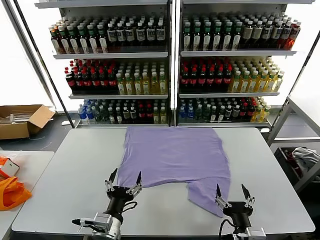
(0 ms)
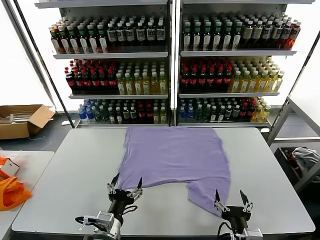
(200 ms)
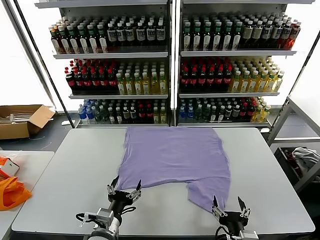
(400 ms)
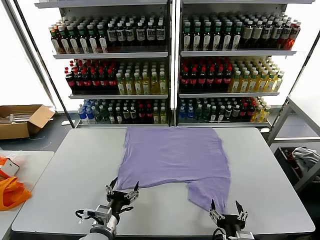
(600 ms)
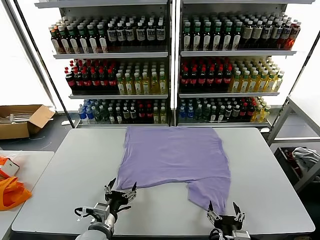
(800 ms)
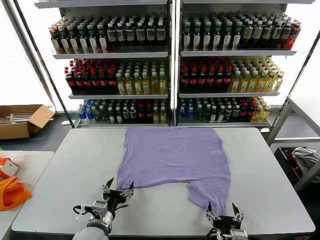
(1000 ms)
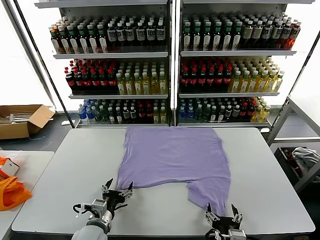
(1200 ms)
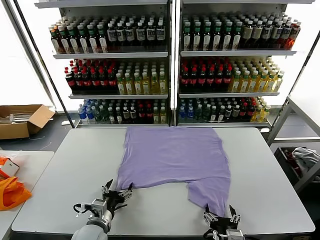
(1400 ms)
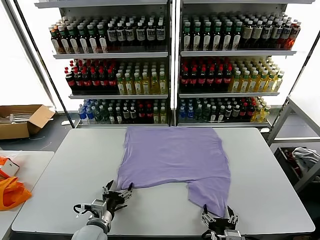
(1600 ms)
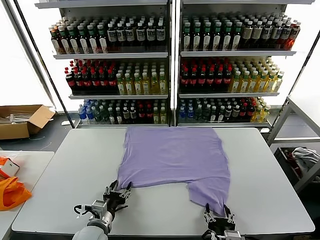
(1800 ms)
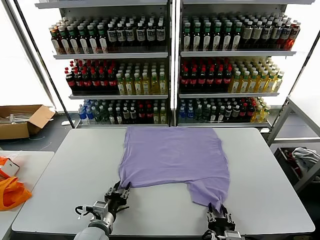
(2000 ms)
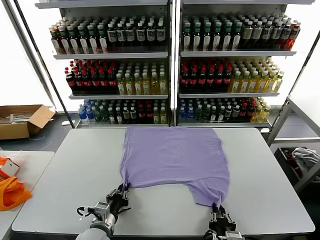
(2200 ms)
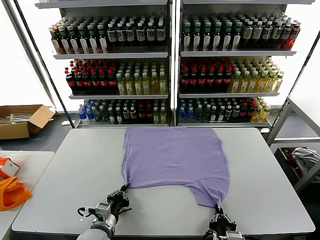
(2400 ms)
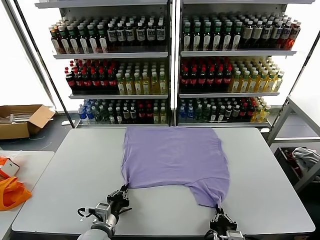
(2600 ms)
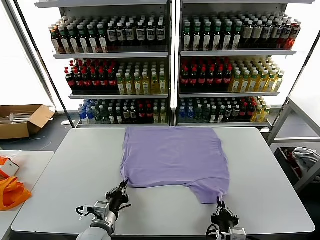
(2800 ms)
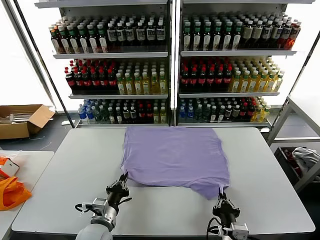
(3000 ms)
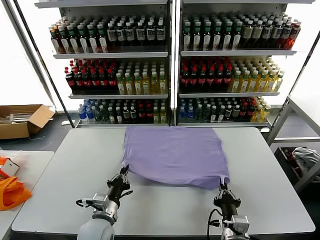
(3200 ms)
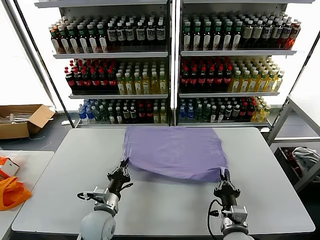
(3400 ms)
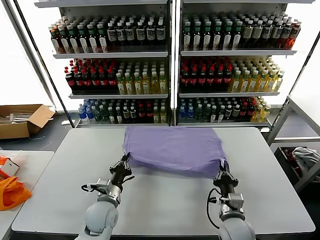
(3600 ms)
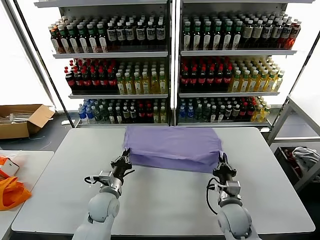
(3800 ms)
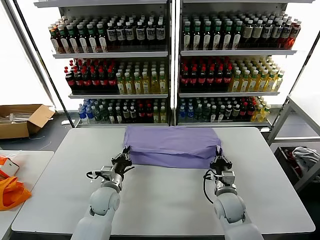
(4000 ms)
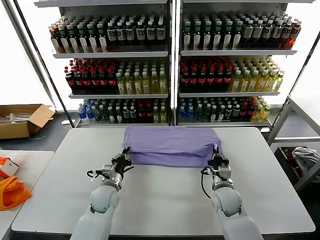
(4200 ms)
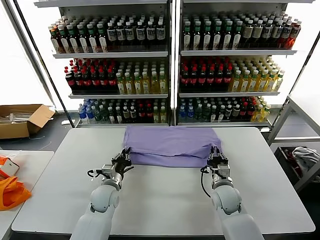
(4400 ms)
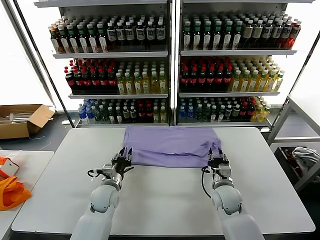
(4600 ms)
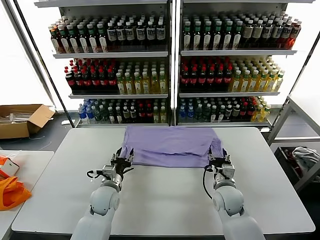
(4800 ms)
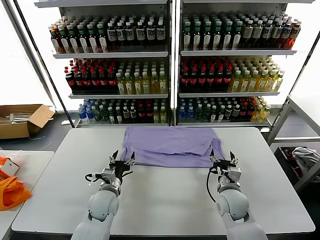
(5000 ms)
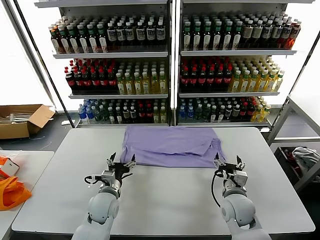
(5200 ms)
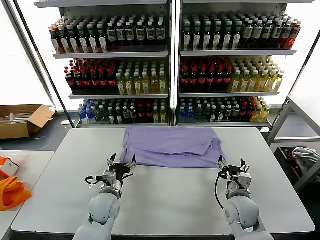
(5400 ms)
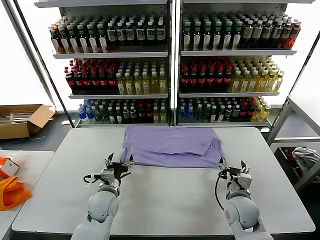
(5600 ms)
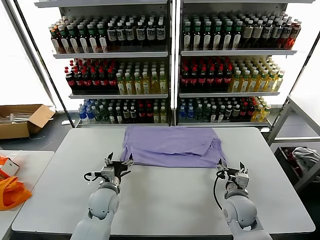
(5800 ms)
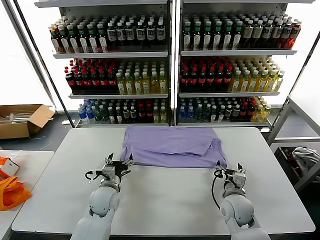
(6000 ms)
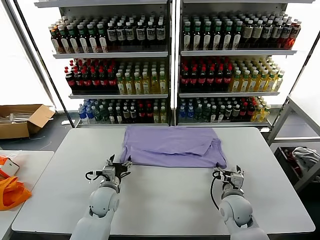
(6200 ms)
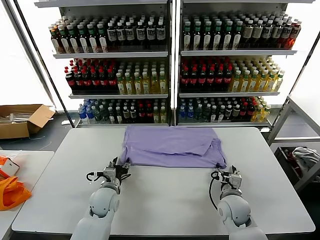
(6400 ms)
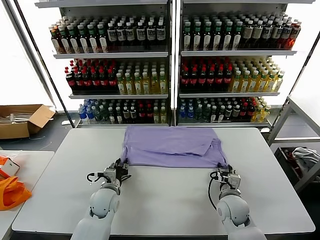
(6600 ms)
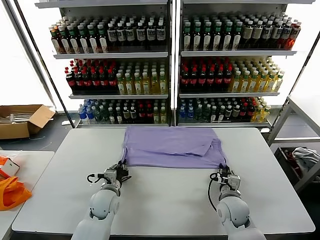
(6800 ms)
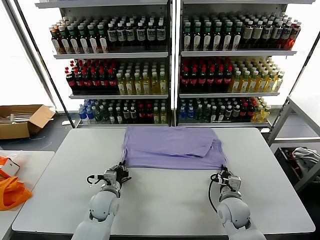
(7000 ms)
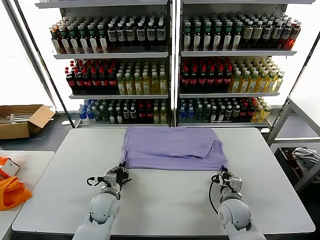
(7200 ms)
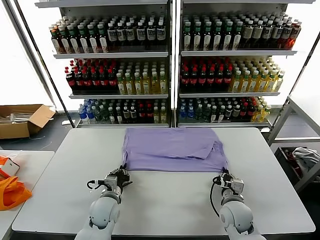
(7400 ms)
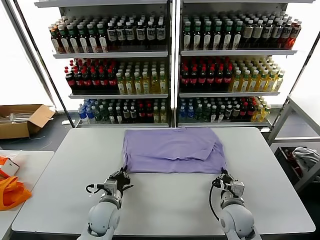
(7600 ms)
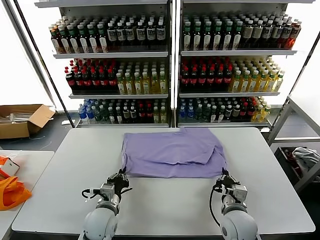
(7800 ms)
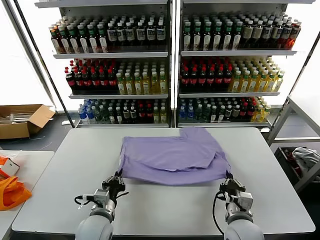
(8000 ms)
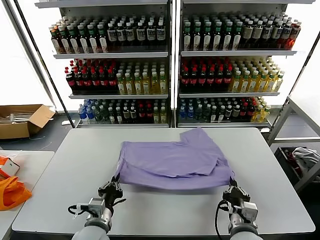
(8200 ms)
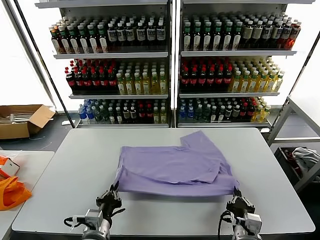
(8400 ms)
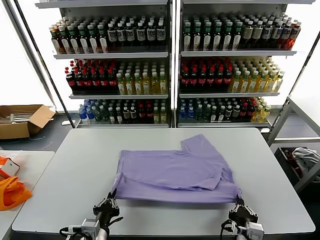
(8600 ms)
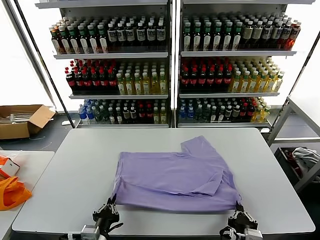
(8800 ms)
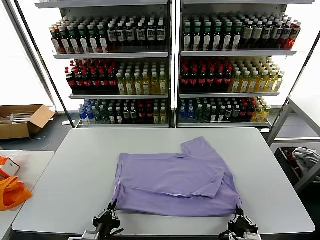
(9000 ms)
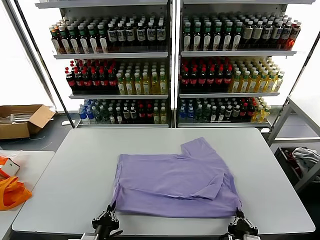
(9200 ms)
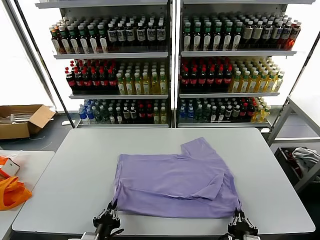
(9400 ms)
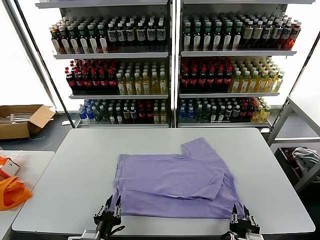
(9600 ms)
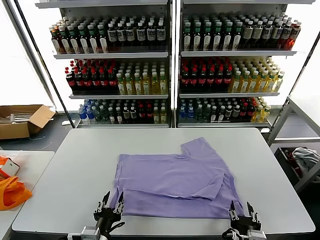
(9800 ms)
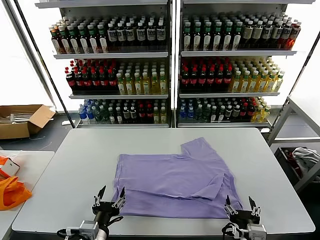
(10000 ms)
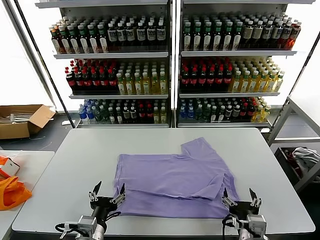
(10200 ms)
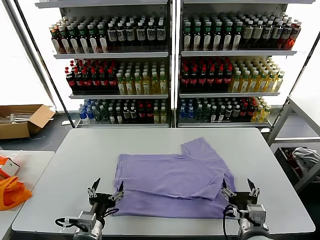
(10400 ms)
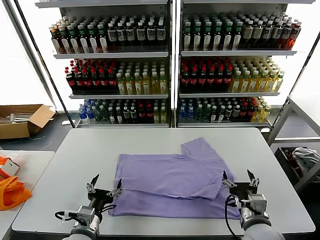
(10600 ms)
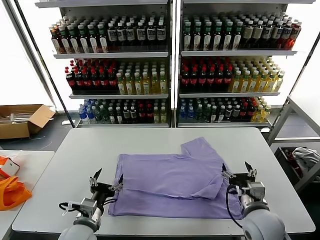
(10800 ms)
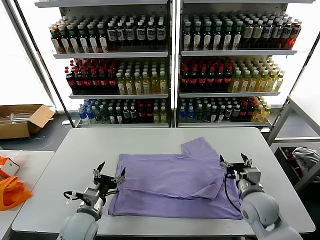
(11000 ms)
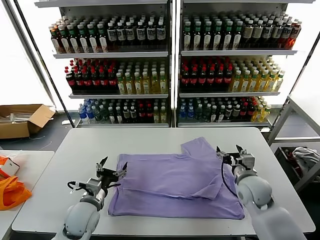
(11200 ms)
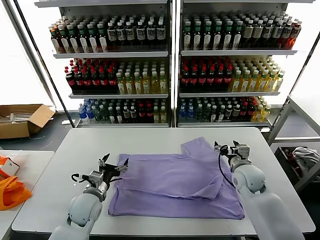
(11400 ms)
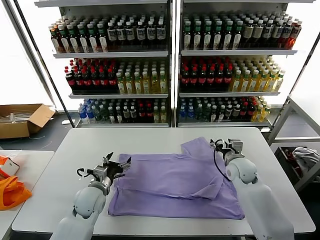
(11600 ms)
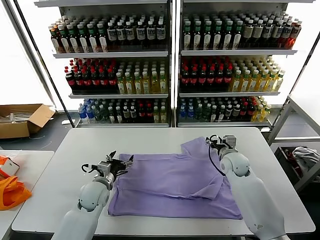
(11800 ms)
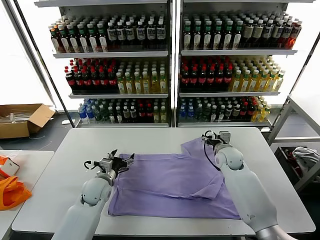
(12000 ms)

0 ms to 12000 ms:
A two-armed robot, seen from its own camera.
Task of the whole recording: fold and organize the clothes.
Step, 0 ms to 2800 ms: use both grippers simultaneously to clamp the lower edge of the clothing fabric.
Step, 3000 ms to 4800 ms: use both grippers to drag the lower edge of the fabric forward and fold it over the upper edge.
Step, 5000 ms to 9800 ms: Drag the clothes downward with both gripper.
1600 ms to 3000 ms: The left gripper closes up, while the right gripper closes.
3000 ms to 4400 ms: Both grippers move forward, some 15 cm. The right gripper opens its fingers.
4400 ms to 6000 ms: The right gripper opens up. The left gripper opens up.
6000 ms to 7600 ms: Both grippers travel together backward, some 5 cm. The right gripper closes, while the left gripper closes its fingers.
7600 ms to 9000 ms: The grippers both shift backward by approximately 15 cm.
9000 ms to 10400 ms: The grippers both shift forward by roughly 5 cm. The left gripper opens up. Meanwhile the right gripper opens up.
10400 ms to 12000 ms: Both grippers move forward, about 25 cm.

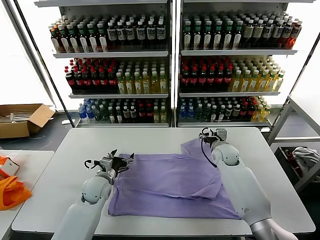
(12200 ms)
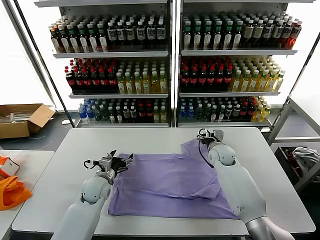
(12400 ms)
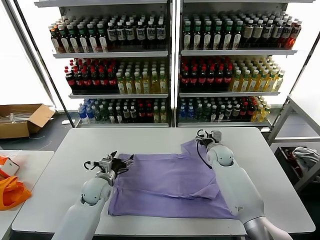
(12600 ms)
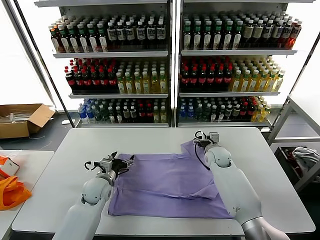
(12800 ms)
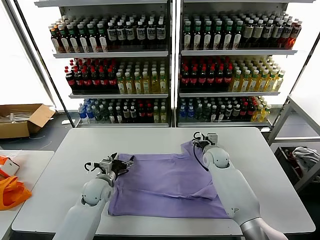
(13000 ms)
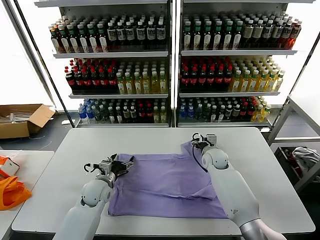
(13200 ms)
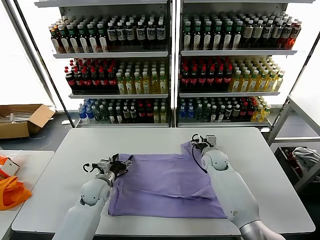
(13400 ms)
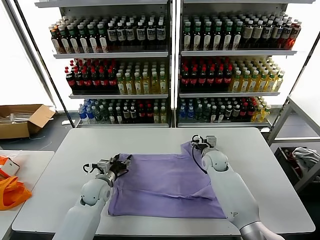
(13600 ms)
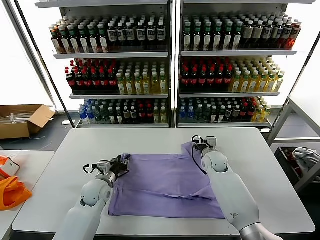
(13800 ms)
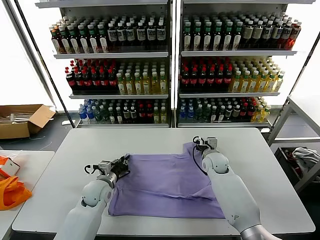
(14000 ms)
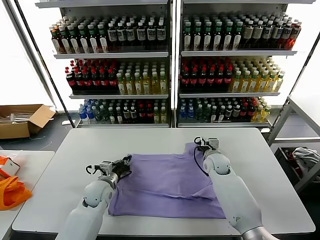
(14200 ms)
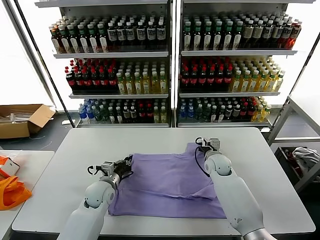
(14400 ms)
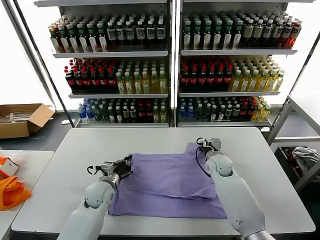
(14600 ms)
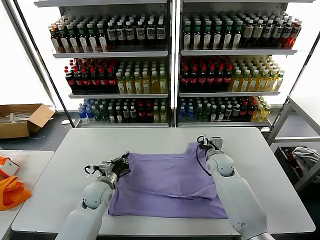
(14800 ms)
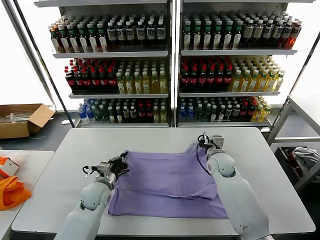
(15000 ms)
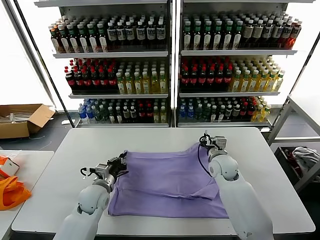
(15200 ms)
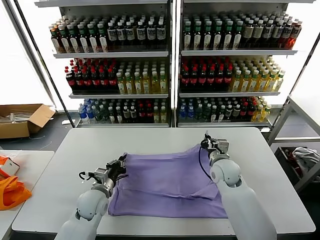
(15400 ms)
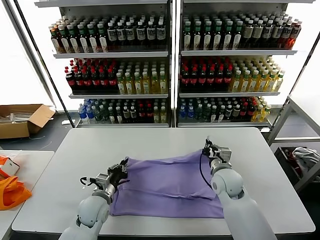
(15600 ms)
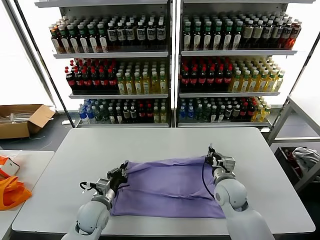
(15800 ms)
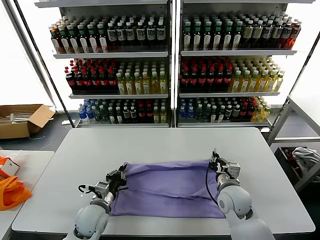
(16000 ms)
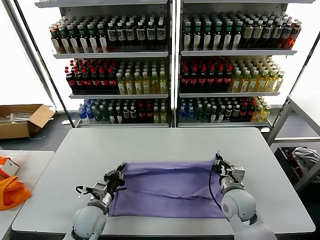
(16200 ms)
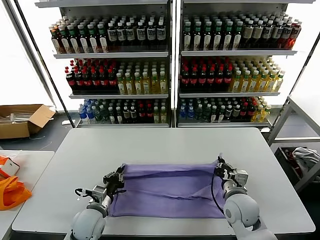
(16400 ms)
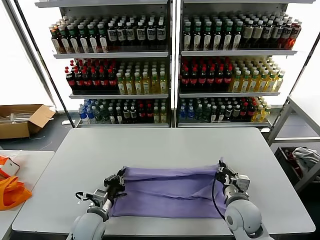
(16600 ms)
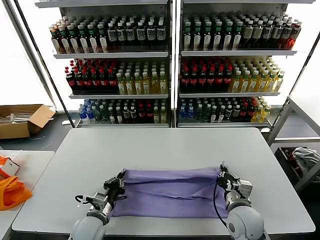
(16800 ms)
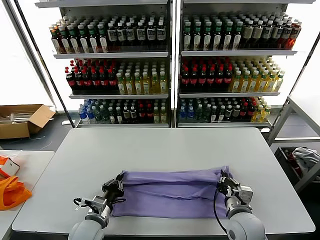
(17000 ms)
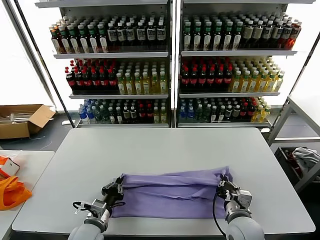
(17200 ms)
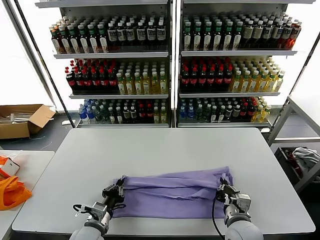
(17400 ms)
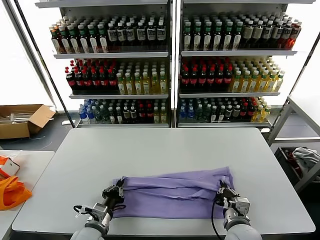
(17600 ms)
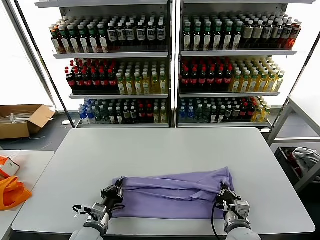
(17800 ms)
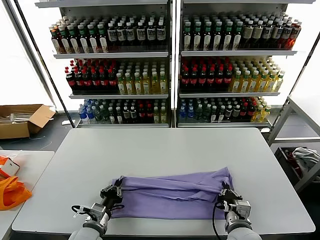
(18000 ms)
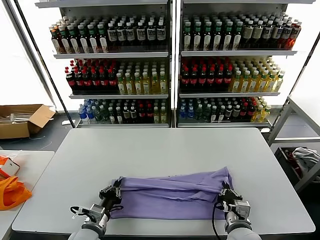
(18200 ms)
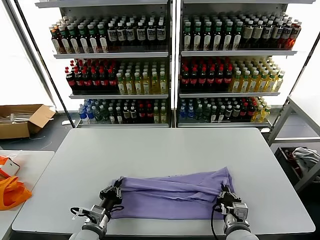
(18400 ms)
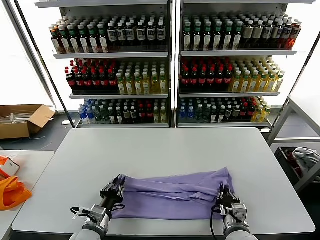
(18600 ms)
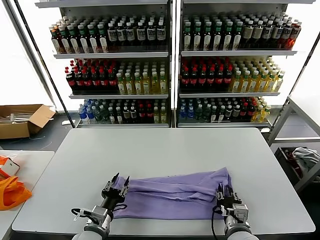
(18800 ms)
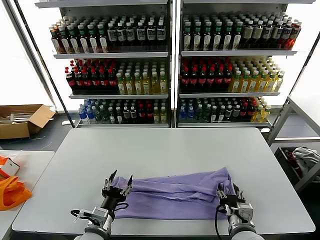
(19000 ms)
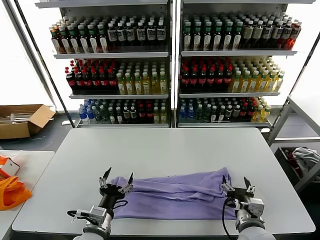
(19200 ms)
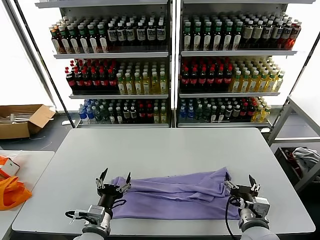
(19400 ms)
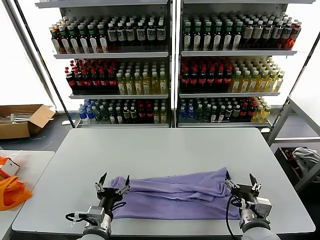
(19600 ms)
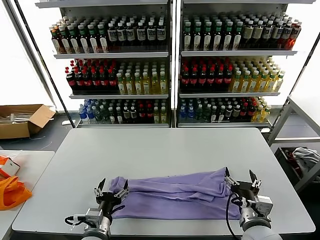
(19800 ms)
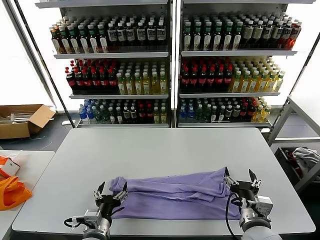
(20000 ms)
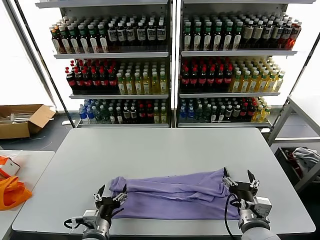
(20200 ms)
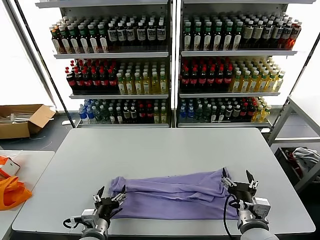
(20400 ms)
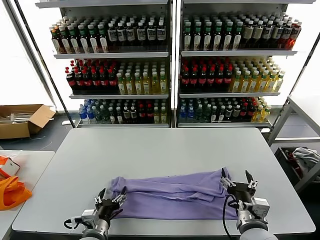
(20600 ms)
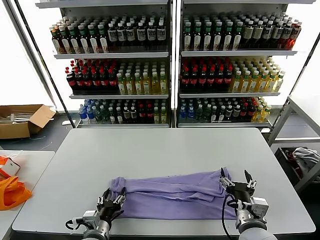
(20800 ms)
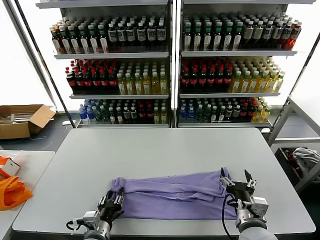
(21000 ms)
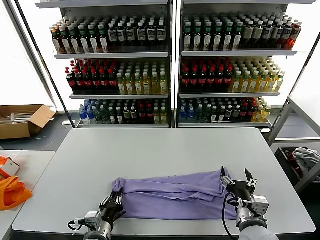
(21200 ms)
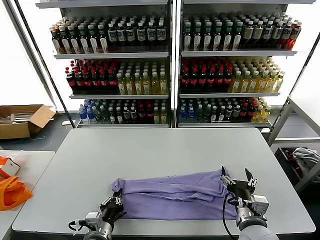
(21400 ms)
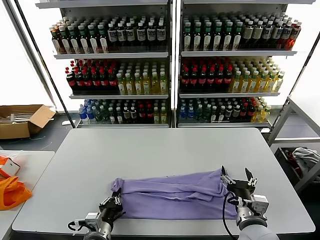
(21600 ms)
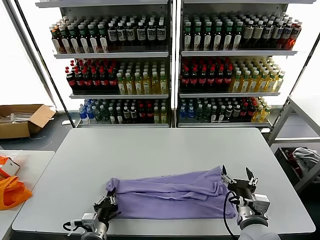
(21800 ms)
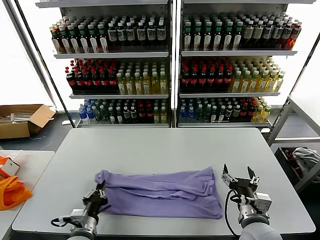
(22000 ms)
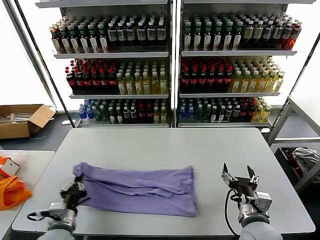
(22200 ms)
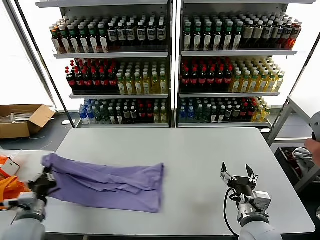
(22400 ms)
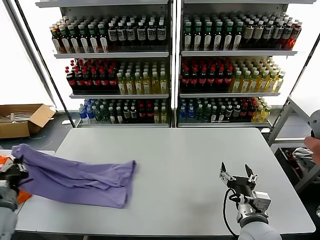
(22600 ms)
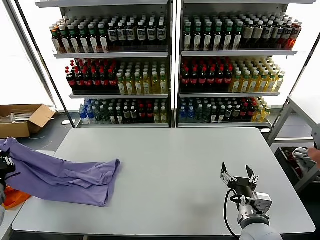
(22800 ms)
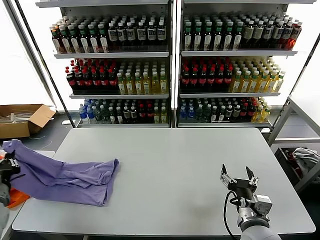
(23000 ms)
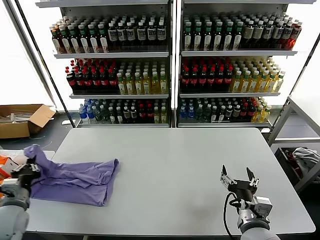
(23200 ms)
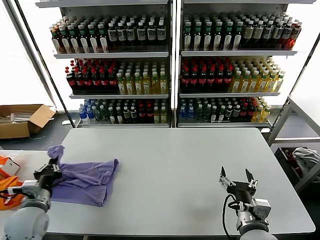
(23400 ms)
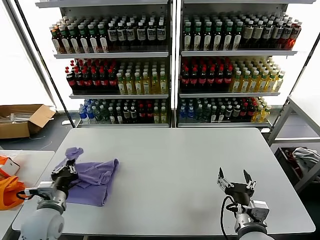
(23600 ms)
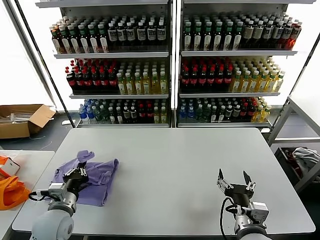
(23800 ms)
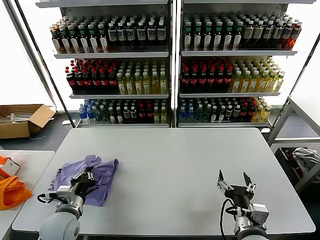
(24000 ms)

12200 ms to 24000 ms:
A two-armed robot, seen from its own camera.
Task of the whole recording: fold and organize the clothes.
Step, 12200 ms to 14800 ms: use both grippers simultaneously to clamp the upper edge of the clothing fabric.
Step, 15000 ms to 19000 ms: use both grippers to drag the upper edge of the fabric backward and fold it over the lower edge.
Step, 19400 ms to 21600 ms: use the left gripper to clamp the left edge of the fabric.
12200 ms to 13600 ms: The left gripper closes.
13600 ms to 15200 ms: The right gripper heads backward, covering about 5 cm, and closes its fingers. The left gripper closes.
15200 ms to 16600 ms: The right gripper moves backward, about 15 cm. The left gripper goes roughly 10 cm backward.
16600 ms to 18200 ms: The right gripper travels backward by some 5 cm.
18200 ms to 19600 ms: The left gripper changes place by about 5 cm, and opens. The right gripper heads upward, covering some 5 cm, and opens its fingers.
19600 ms to 21000 ms: The left gripper closes up.
21000 ms to 22600 ms: The left gripper moves to the left, about 25 cm, and closes up.
22600 ms to 24000 ms: The left gripper shifts some 20 cm to the right.
